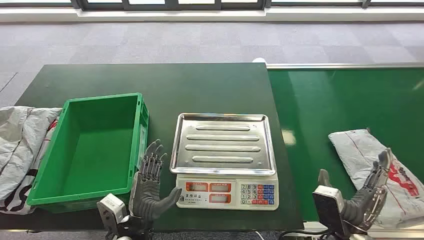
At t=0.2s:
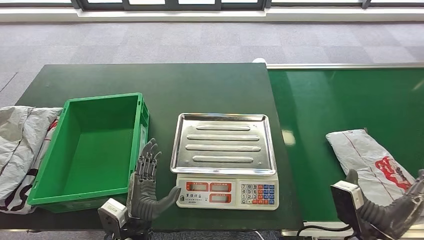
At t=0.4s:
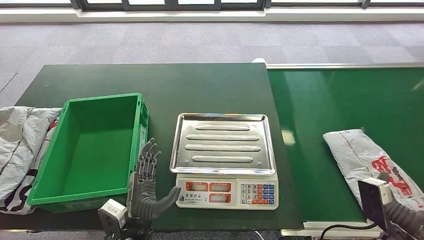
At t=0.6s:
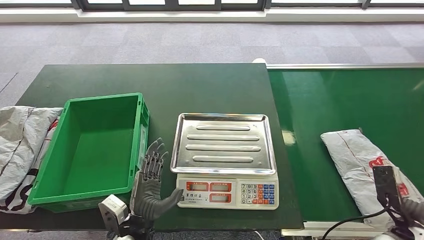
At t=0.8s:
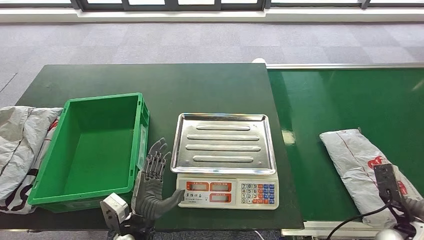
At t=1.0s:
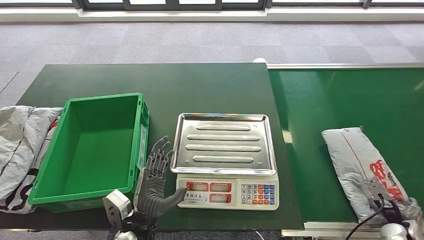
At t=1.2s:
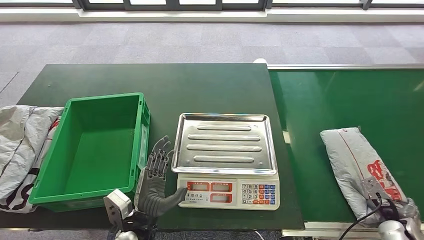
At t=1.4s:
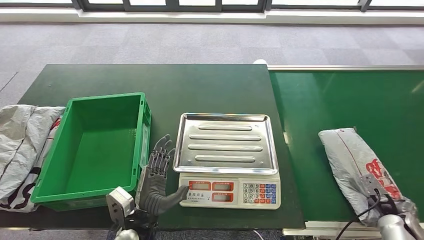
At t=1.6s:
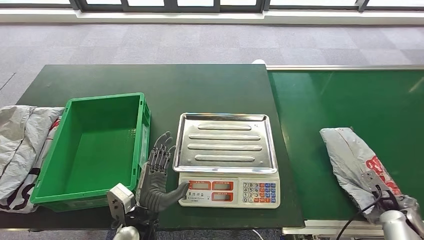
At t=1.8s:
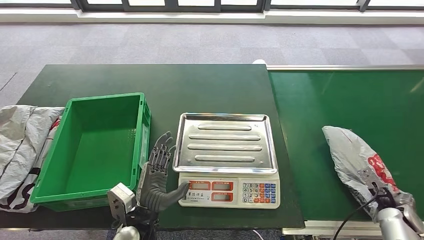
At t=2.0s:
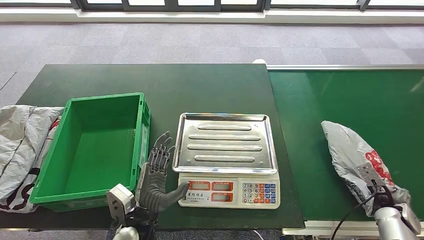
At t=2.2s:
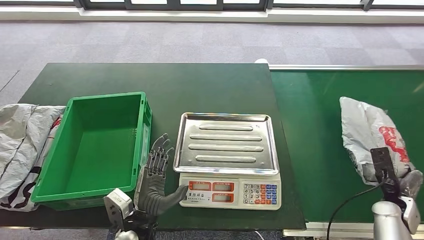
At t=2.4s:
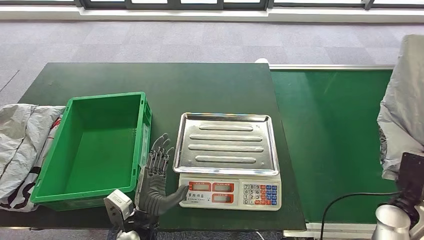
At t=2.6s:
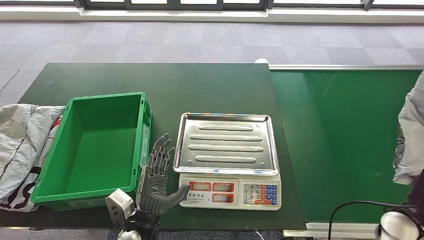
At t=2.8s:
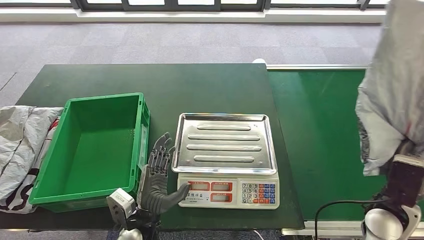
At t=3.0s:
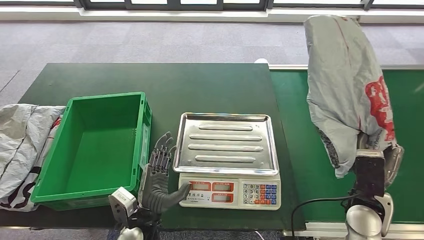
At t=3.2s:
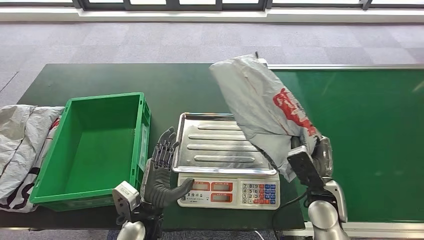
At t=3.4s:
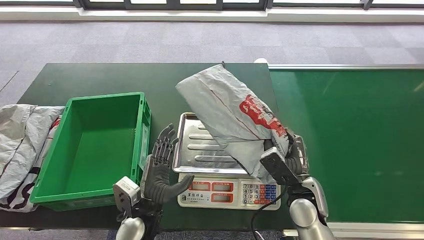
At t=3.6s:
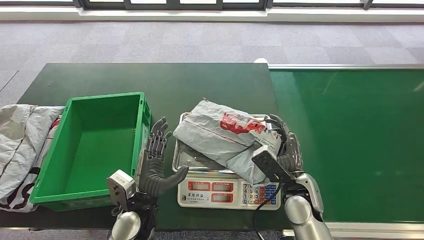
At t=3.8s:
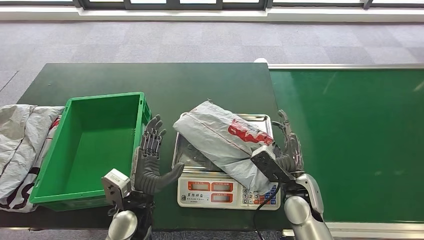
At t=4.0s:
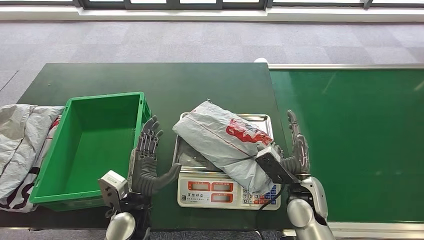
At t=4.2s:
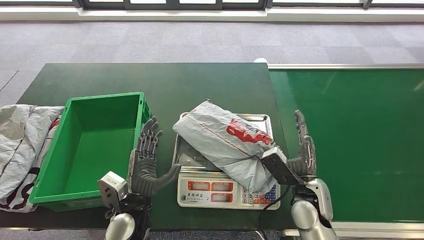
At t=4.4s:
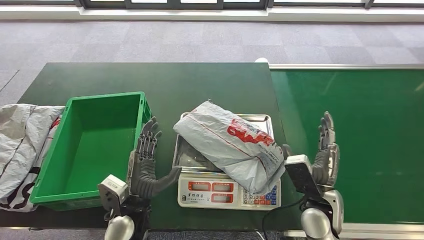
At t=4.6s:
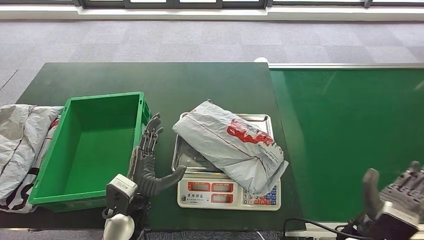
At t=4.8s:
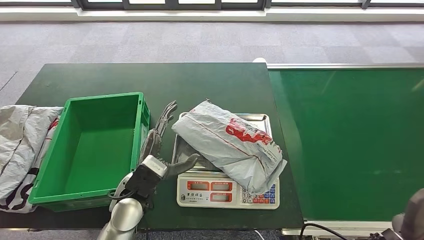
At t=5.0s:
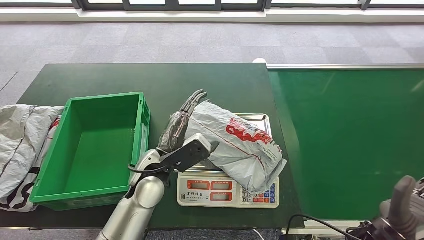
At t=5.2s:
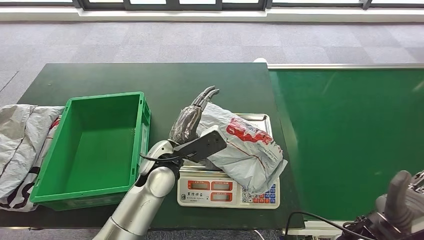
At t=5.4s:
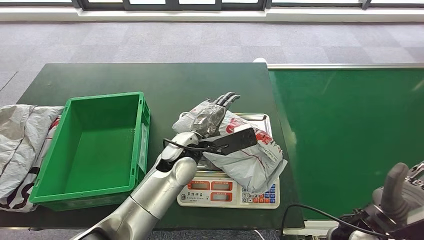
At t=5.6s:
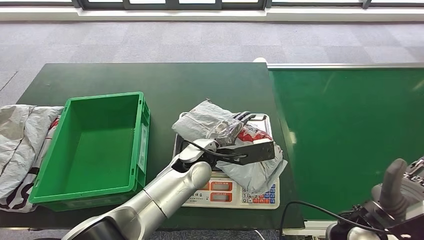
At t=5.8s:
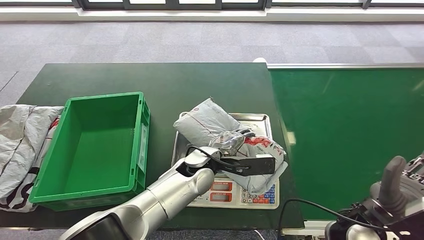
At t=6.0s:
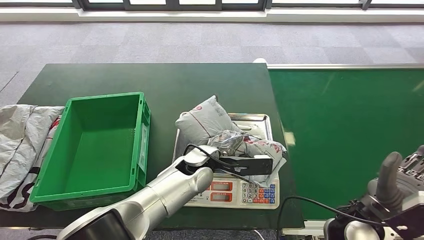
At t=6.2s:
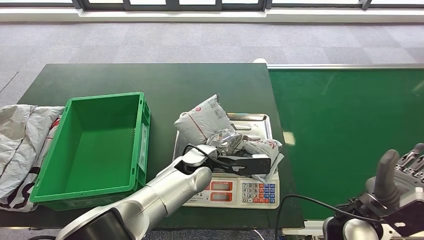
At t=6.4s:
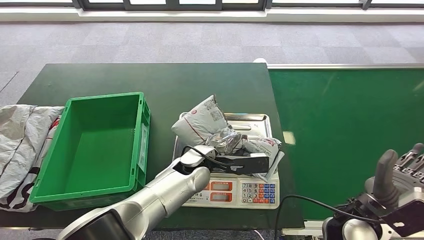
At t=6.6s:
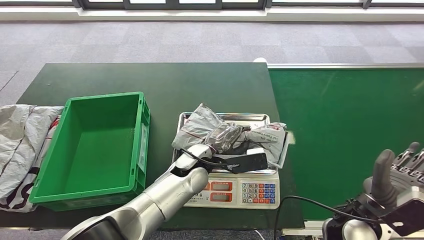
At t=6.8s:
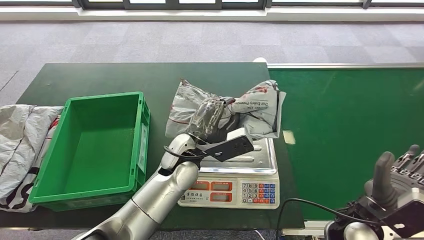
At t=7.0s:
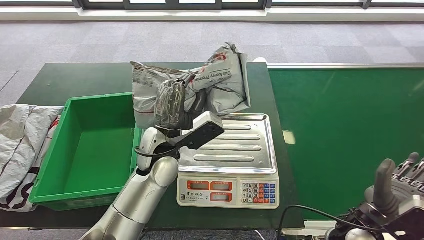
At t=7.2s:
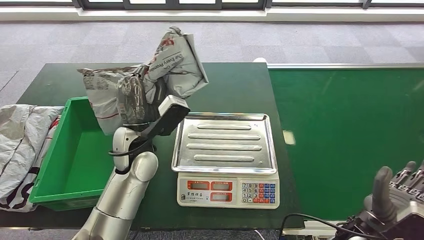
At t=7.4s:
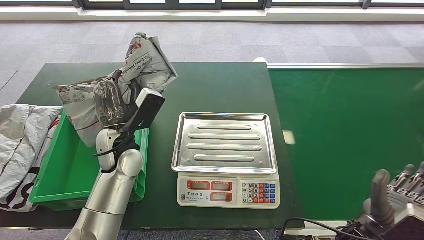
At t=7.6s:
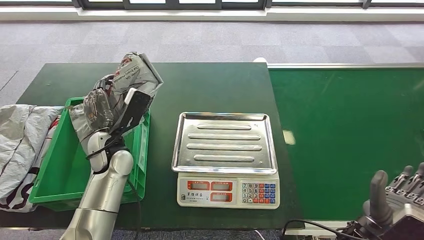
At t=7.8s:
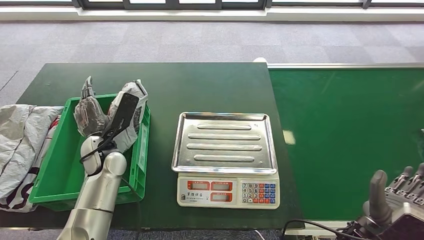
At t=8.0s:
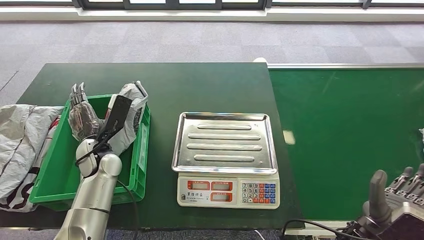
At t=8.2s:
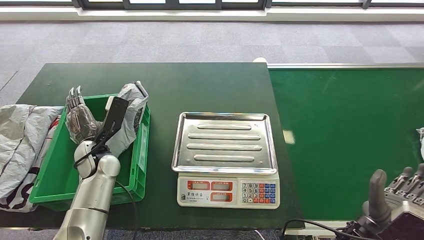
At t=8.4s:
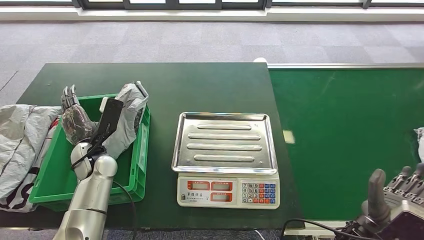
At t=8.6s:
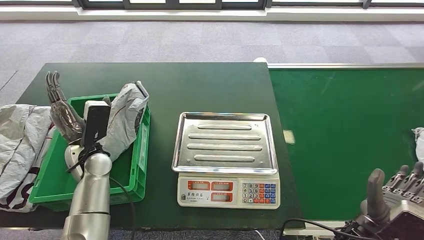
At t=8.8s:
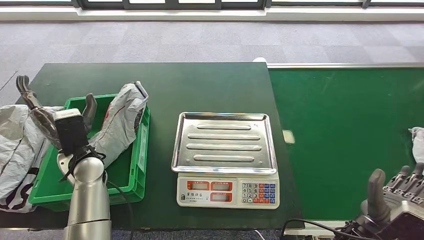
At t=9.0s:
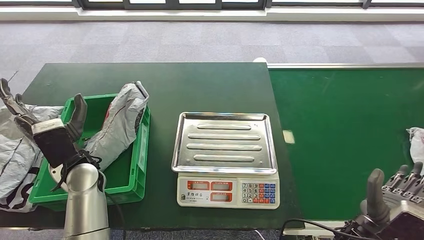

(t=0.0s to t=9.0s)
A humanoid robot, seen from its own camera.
Step, t=0.0s - t=2.6s: Take the parcel off the conveyor belt.
Step, t=3.0s - t=4.4s: Place the parcel onto the inbound machine.
Step, t=4.6s - t=7.0s: Pick up the parcel from the inbound machine.
Step, t=7.2s - t=9.0s: Put the parcel inside the courier box.
t=7.6s - t=9.0s: The left hand travels backward by some 5 cm.
